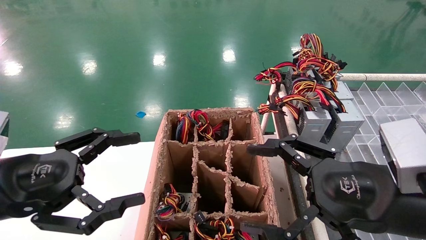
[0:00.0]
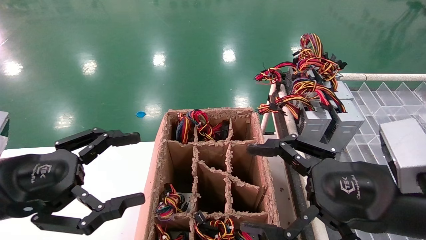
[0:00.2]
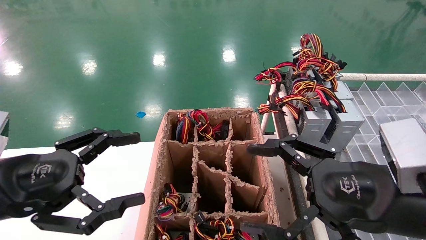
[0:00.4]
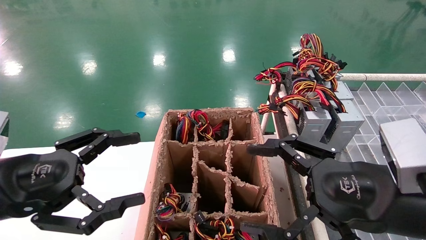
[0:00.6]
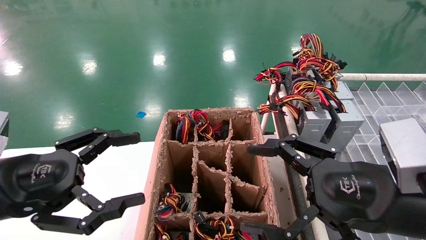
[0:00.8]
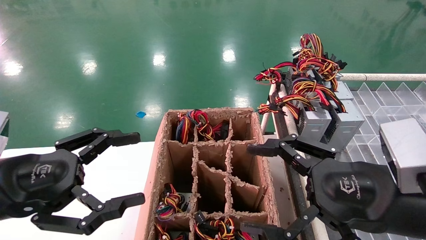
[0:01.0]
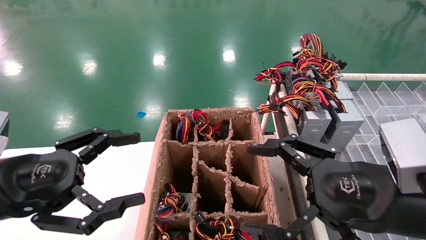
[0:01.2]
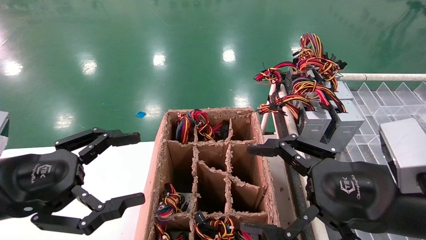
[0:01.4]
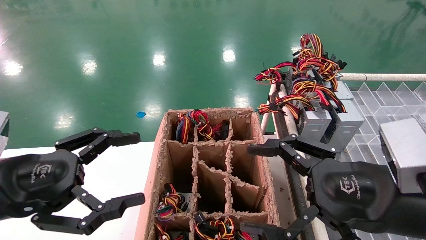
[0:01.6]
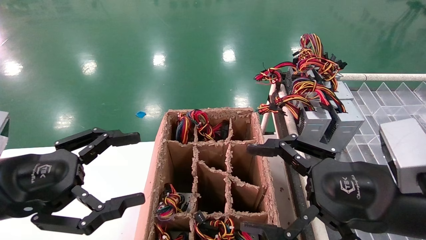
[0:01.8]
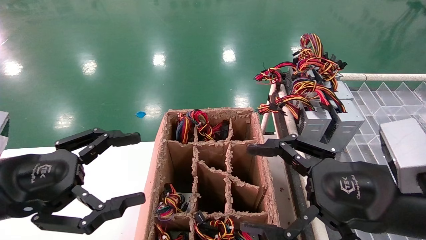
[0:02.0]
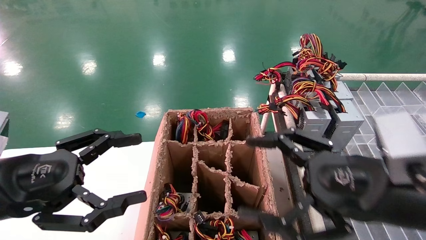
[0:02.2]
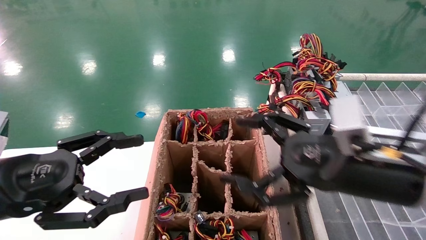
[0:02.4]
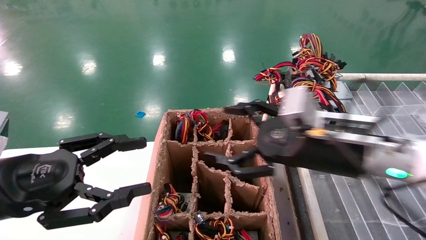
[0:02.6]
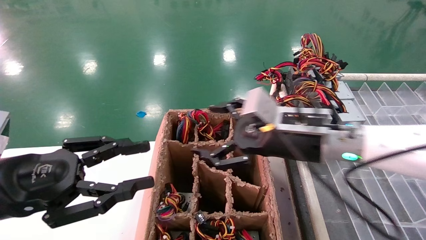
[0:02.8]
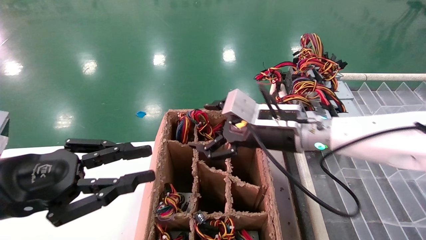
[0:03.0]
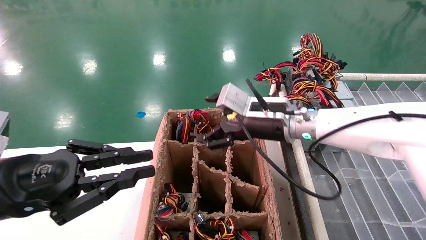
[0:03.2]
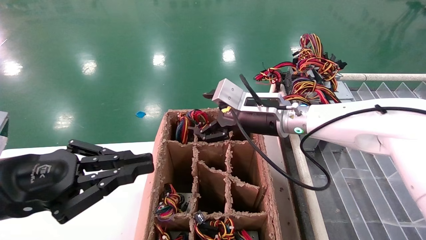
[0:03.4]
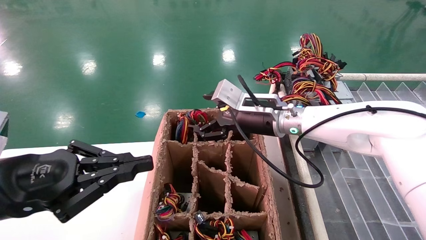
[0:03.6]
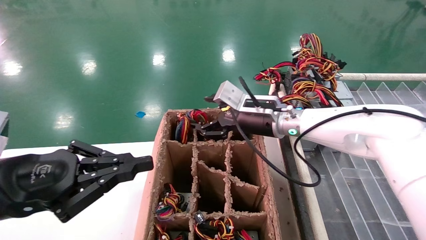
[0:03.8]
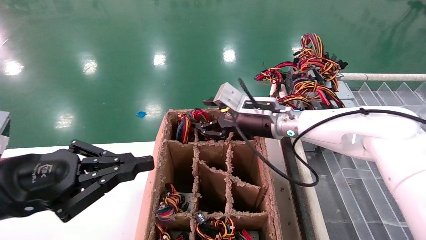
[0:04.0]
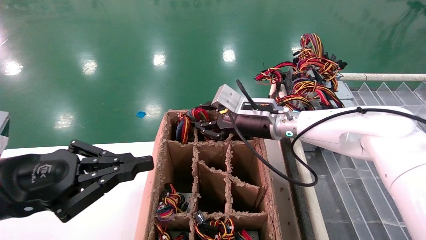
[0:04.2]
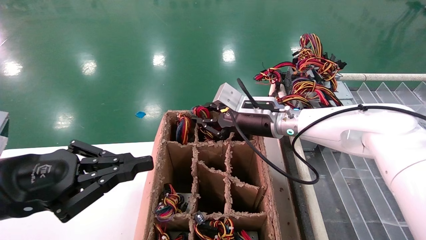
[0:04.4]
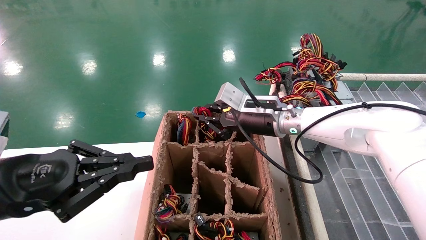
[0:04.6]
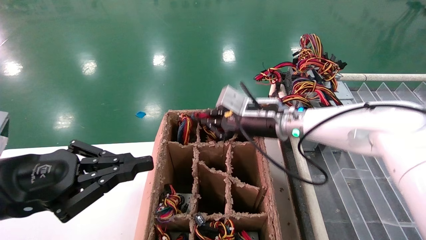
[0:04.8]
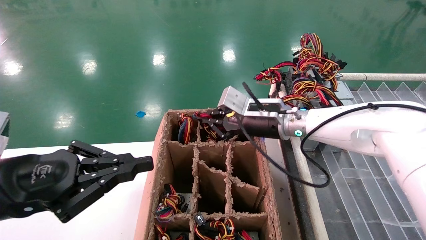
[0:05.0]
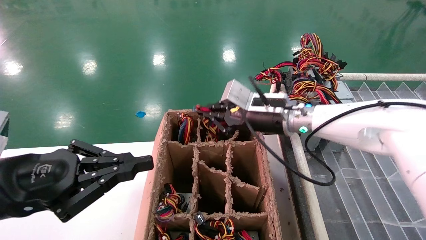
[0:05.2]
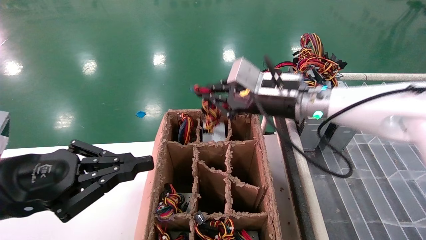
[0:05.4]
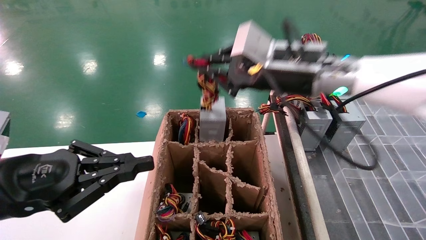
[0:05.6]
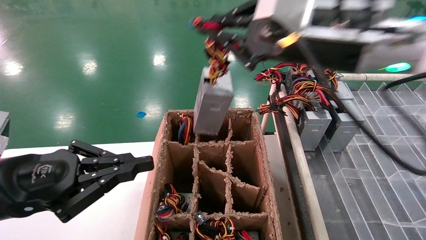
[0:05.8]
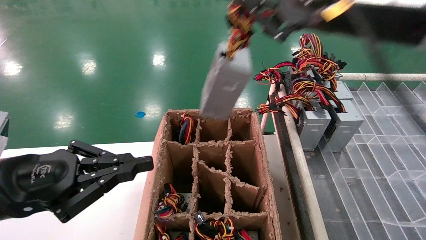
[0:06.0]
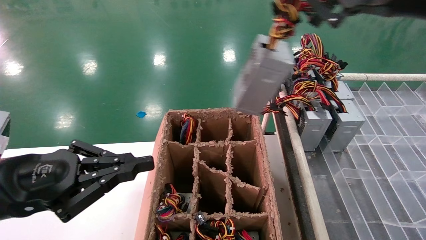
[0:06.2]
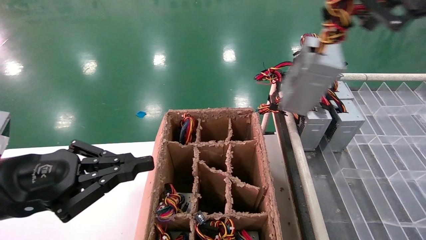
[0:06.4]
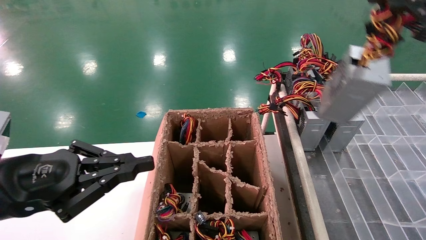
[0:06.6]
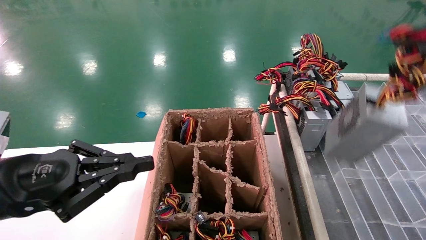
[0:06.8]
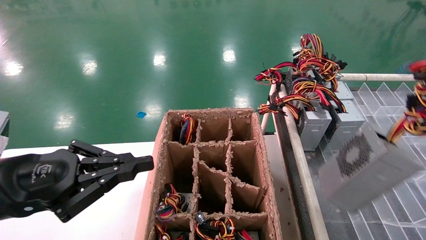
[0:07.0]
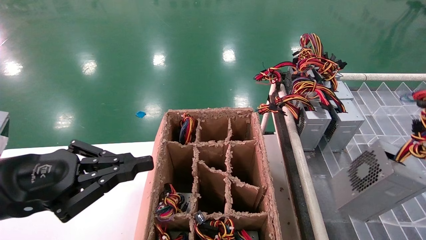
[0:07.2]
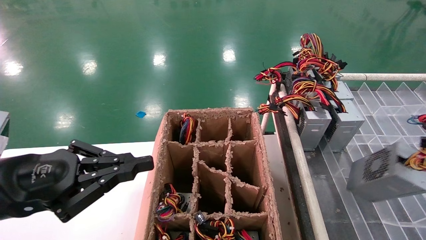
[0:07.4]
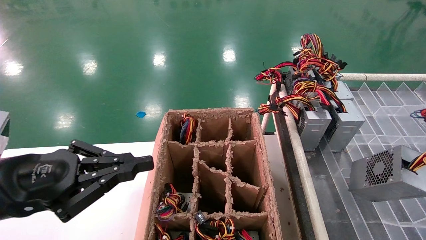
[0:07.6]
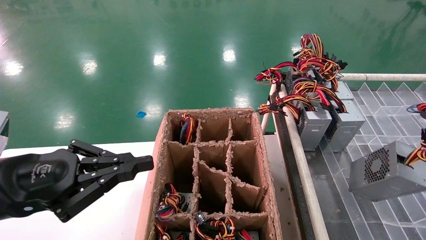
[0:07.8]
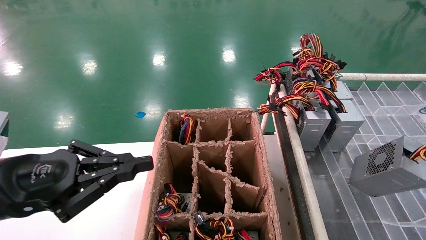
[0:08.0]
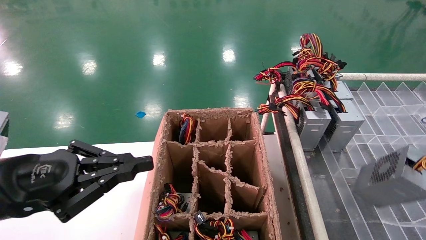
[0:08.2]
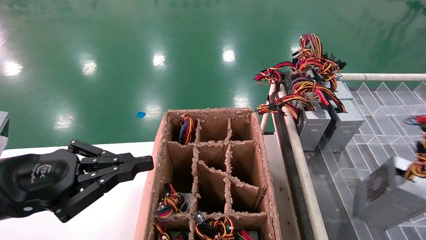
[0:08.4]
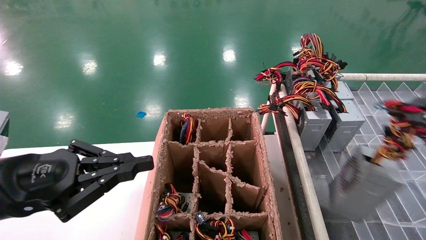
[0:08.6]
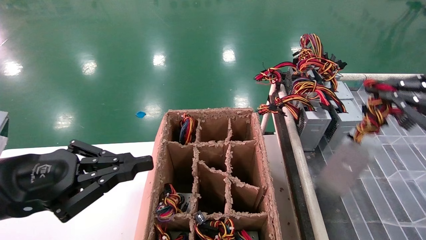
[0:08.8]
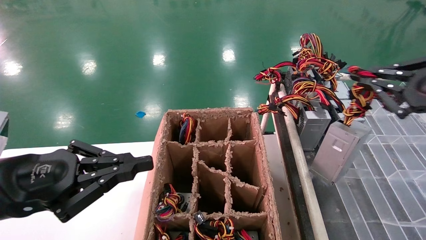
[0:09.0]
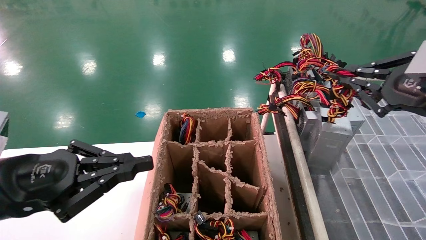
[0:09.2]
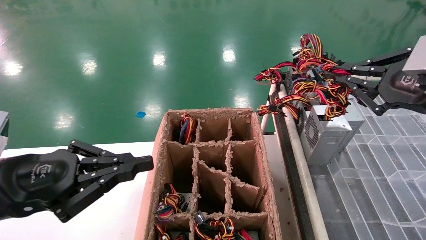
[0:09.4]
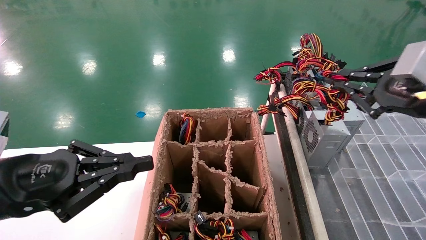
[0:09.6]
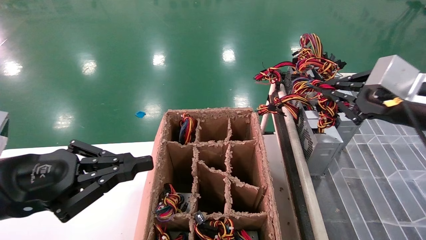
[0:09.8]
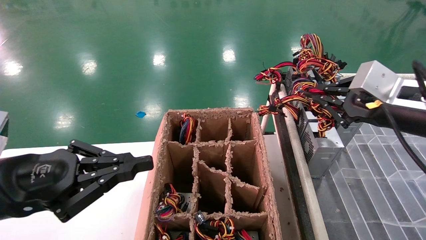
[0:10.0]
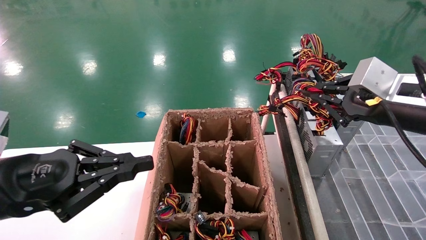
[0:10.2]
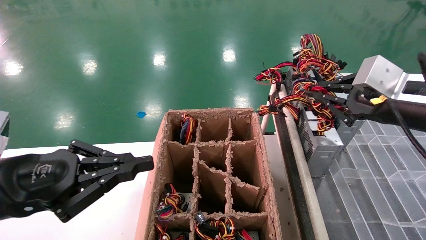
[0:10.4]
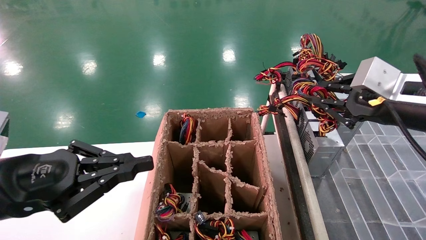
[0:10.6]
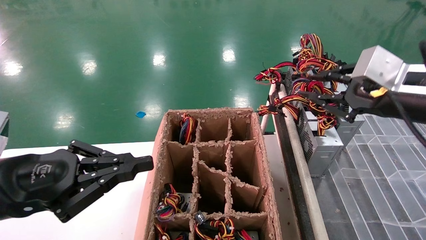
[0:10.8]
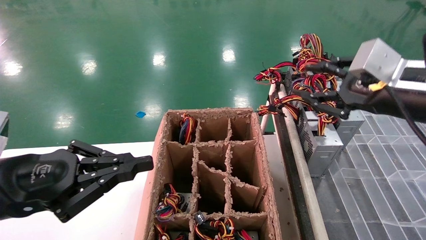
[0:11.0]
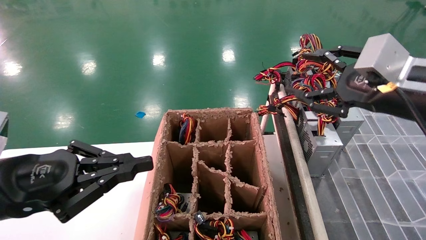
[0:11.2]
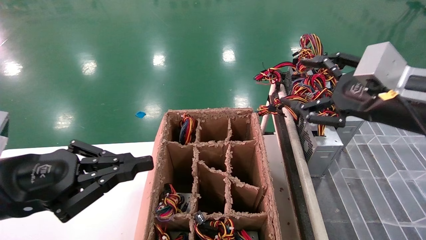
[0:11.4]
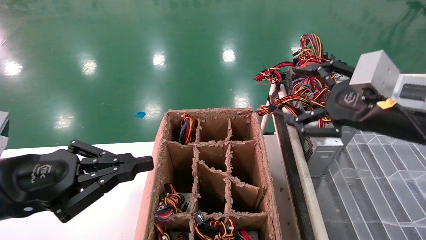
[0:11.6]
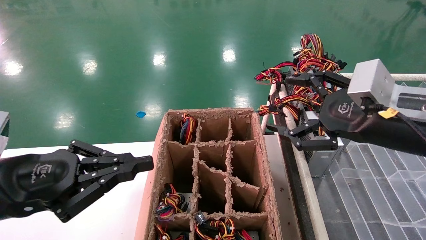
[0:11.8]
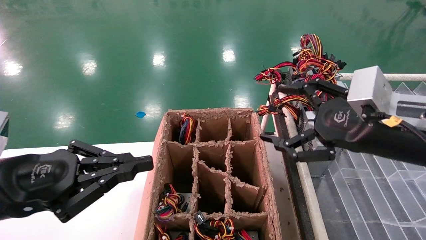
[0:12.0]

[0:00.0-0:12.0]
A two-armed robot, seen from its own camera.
Step, 0:02.6 to 0:04.6: Grab the main unit power supply from the containment box.
Step, 0:04.8 to 0:11.2: Place the main unit power supply in the designated area.
0:00.0 to 0:01.6: Both grippers stay put.
0:01.6 to 0:03.0: The right gripper is displaced forward and to the left by roughly 20 cm, while the left gripper closes its fingers.
0:03.0 to 0:04.4: The right gripper shifts roughly 10 cm forward, and closes up. Meanwhile the left gripper closes.
0:04.4 to 0:06.0: The right gripper moves backward, upward and to the right, roughly 30 cm, and closes its fingers.
0:06.0 to 0:07.6: The right gripper heads to the right, backward and downward, covering approximately 25 cm.
0:07.6 to 0:09.0: The right gripper moves forward and to the left, about 10 cm.
0:09.0 to 0:10.4: The right gripper travels forward and to the left by roughly 10 cm.
0:10.4 to 0:12.0: The right gripper shifts approximately 5 cm to the left, and opens.

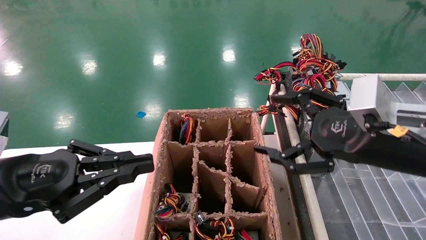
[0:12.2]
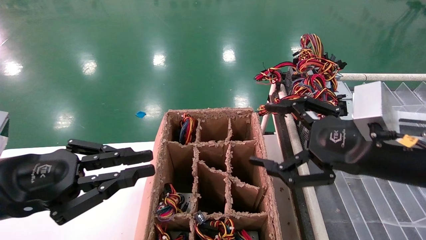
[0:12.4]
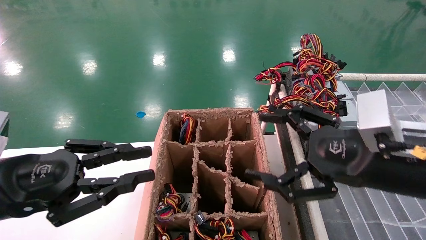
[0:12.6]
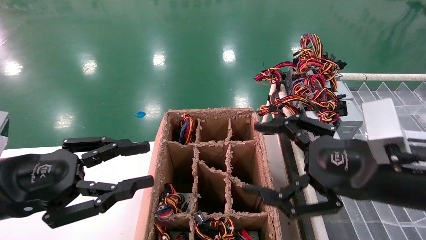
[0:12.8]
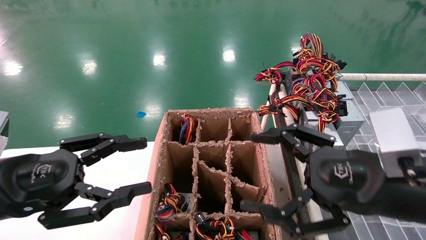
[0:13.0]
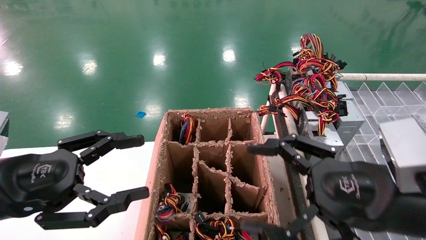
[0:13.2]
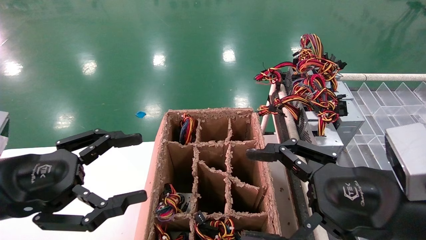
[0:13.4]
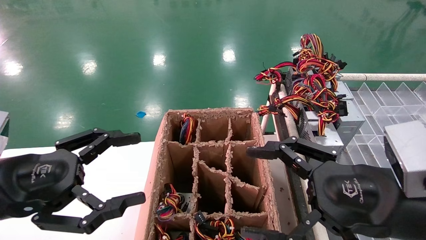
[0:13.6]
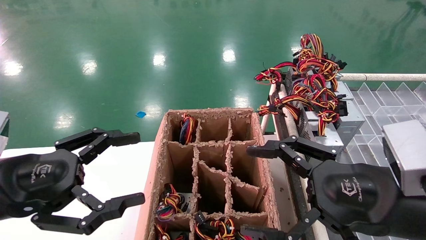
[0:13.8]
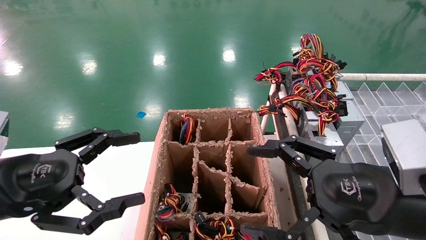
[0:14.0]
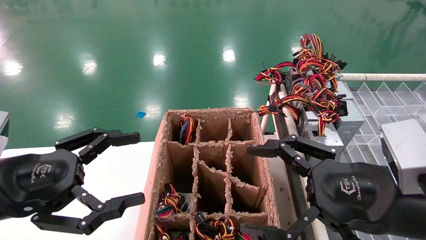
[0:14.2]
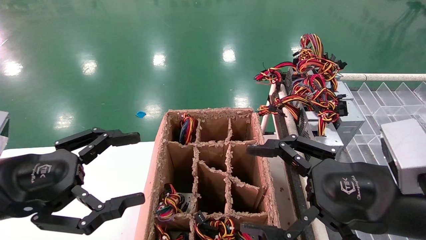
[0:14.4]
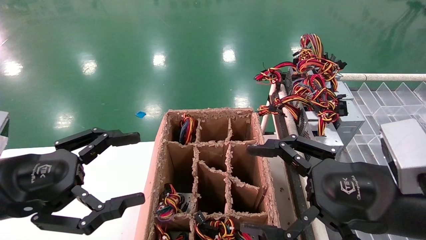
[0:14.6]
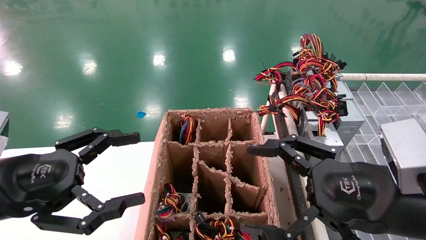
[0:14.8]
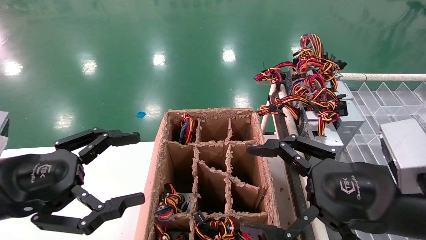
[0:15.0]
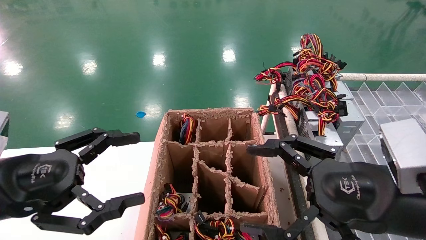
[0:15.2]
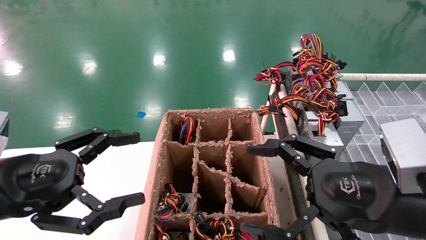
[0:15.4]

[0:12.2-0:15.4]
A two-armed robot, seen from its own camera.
0:12.2 to 0:13.8: The left gripper opens its fingers, while the right gripper moves roughly 5 cm.
0:13.8 to 0:15.4: Neither gripper changes place.
